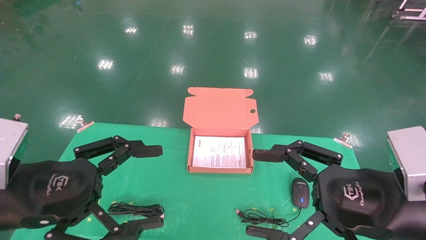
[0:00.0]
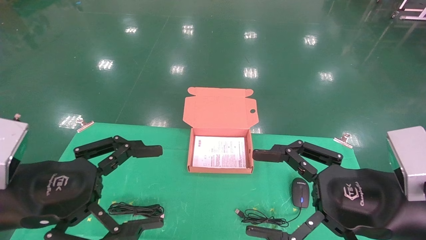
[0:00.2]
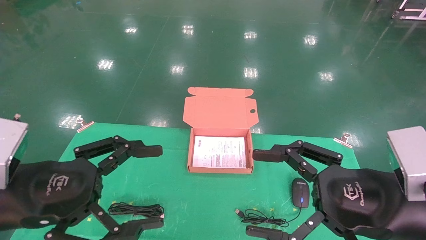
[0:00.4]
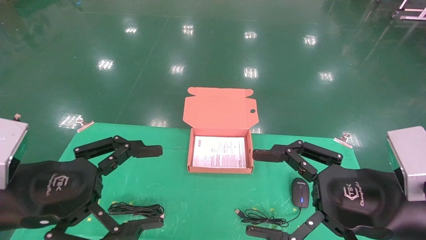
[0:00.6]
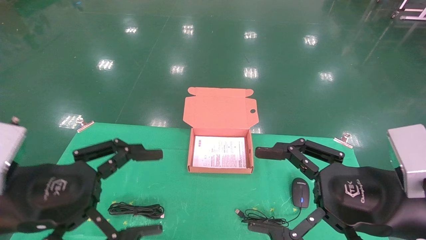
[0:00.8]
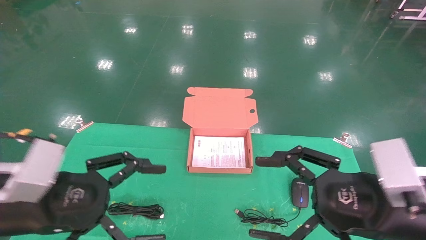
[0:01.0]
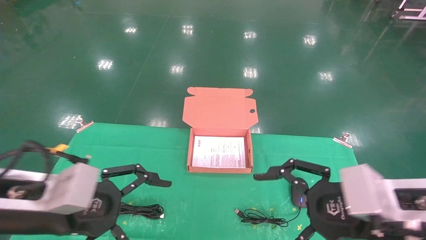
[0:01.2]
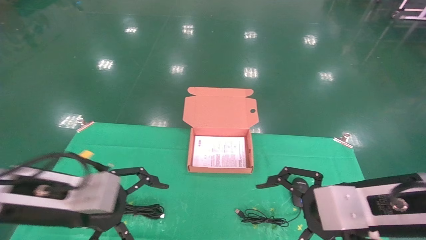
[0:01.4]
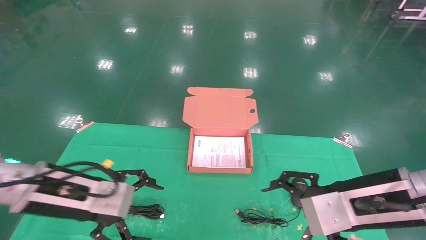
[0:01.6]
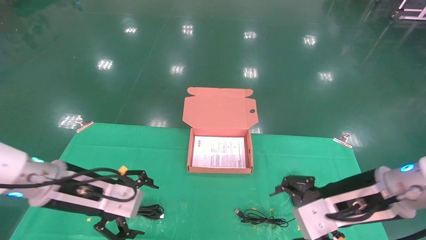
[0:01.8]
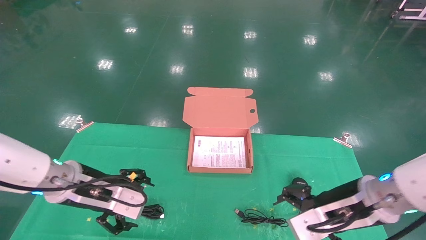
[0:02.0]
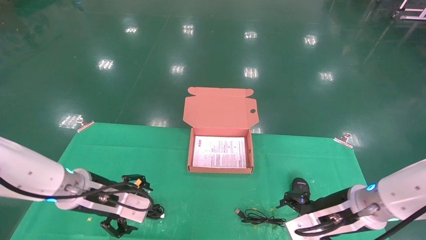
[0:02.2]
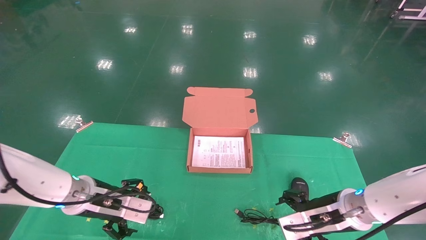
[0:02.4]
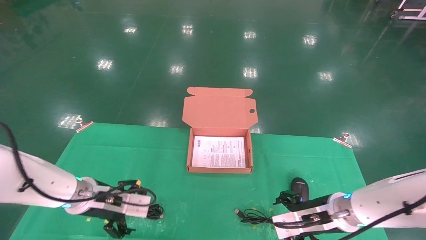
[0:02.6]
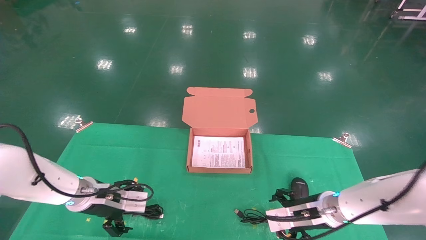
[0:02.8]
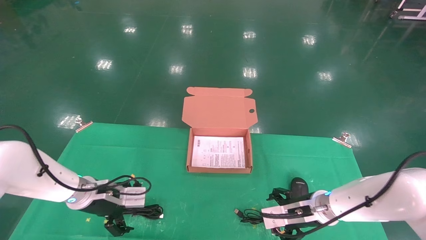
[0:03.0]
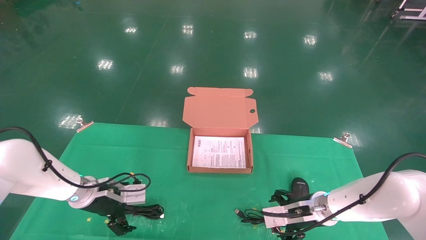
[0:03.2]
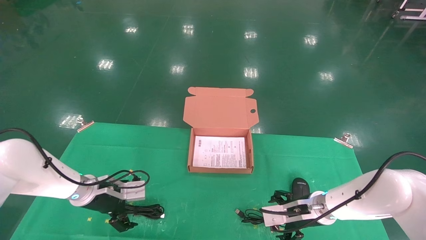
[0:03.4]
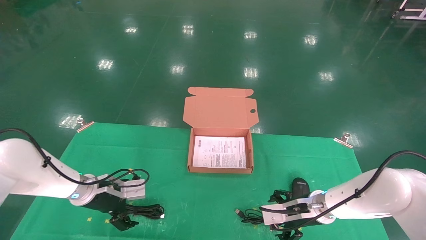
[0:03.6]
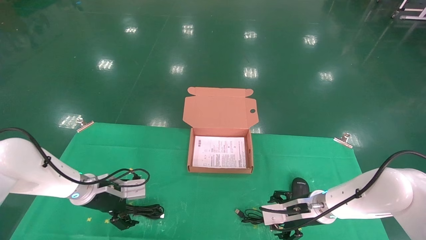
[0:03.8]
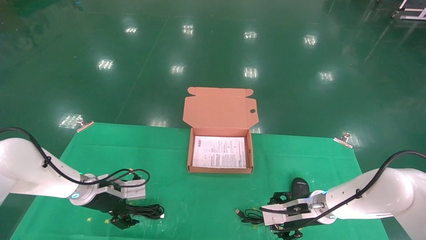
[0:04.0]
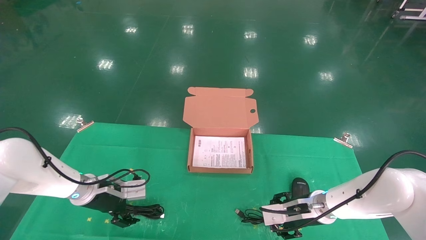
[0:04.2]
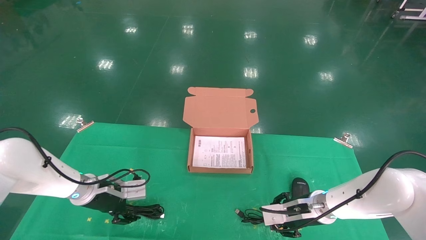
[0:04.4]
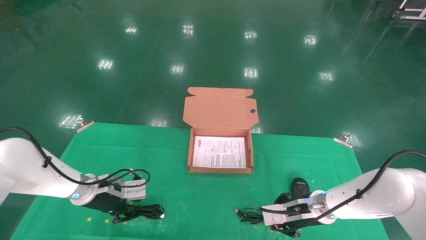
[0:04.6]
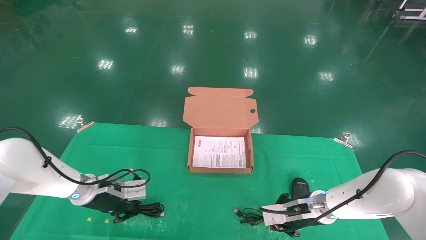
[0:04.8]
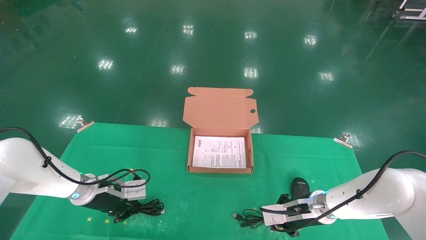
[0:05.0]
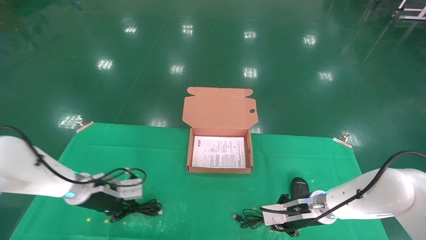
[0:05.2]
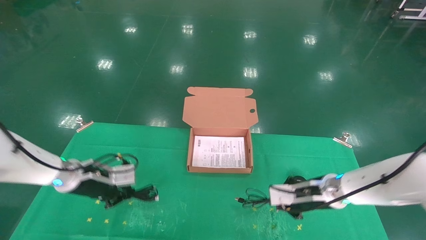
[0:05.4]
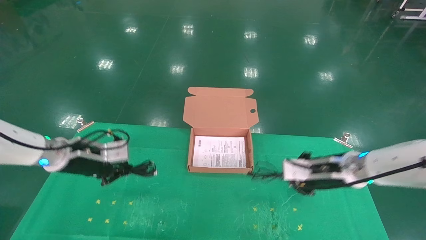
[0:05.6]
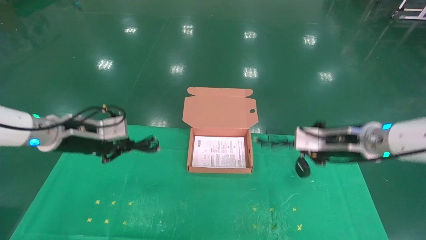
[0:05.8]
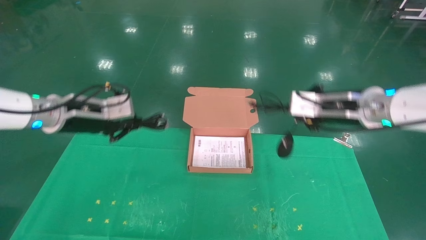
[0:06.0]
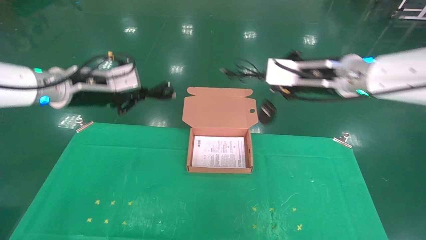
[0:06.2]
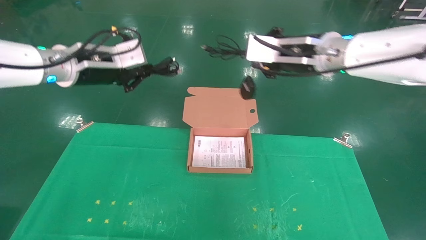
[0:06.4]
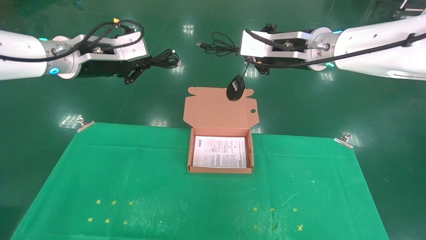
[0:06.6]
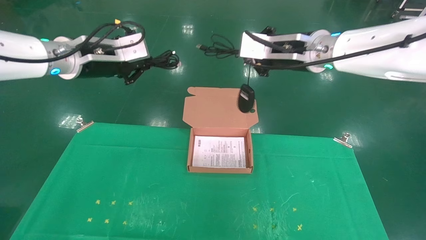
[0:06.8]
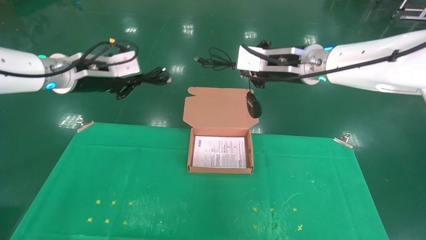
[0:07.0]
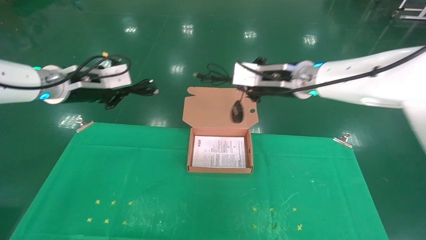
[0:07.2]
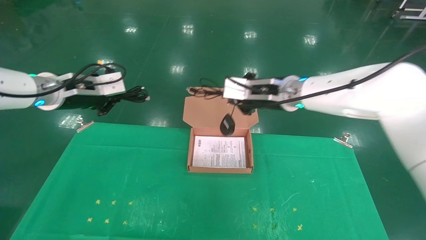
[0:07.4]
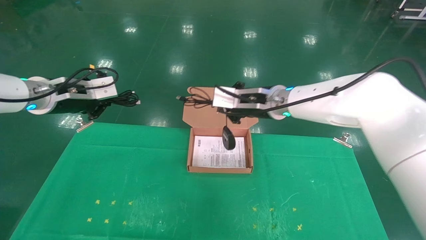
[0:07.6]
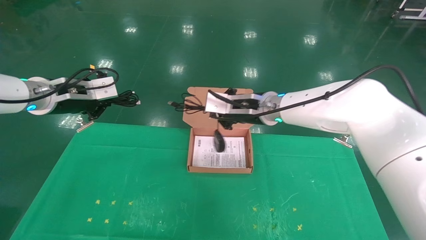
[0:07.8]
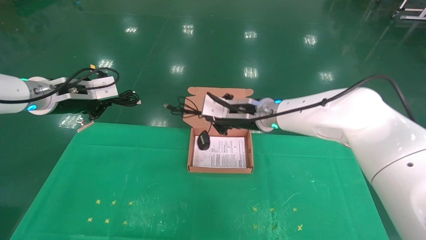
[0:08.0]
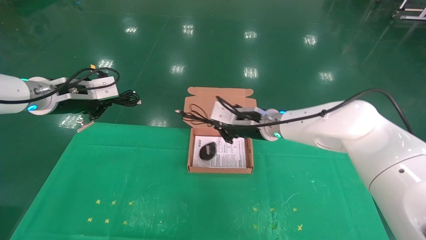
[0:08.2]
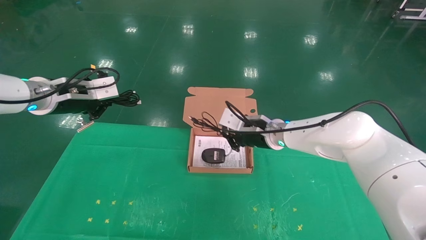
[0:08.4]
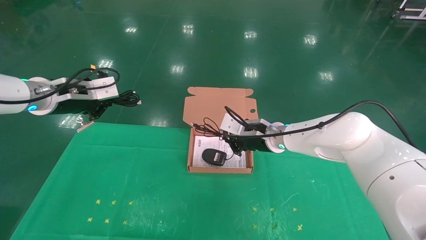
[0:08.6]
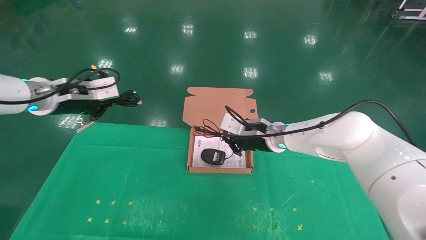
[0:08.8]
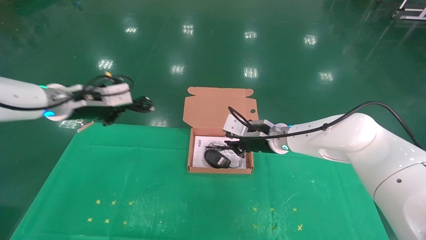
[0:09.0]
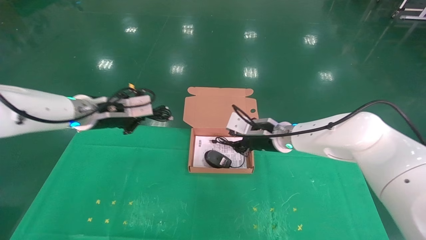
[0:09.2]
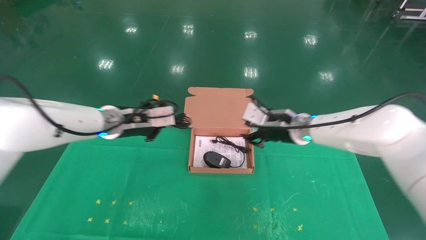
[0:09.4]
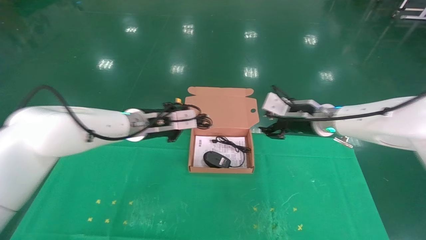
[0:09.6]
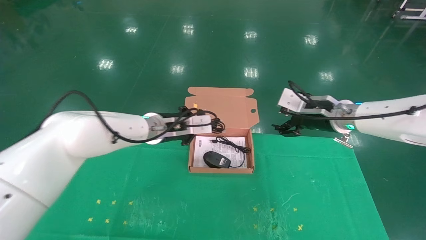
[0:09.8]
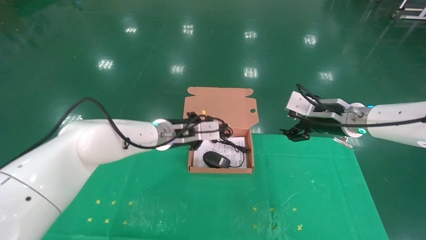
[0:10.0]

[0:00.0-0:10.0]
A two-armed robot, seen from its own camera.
Task of the whole recording: grasp data cable left put into box grasp mouse right put into box.
Step, 0:01.2 to 0:05.6: Grab and pick up both the mouse and power cord from the accessory packaging area at the same time.
0:00.0 to 0:01.4: The left gripper is displaced forward by about 5 cm.
0:01.4 to 0:02.8: Both grippers travel together forward and downward, some 20 cm.
0:02.8 to 0:04.2: The grippers make only small movements.
0:04.2 to 0:05.8: The two grippers go about 15 cm upward. The left gripper closes up. The right gripper closes.
0:05.8 to 0:07.2: The right gripper heads to the left and upward, covering approximately 15 cm; the left gripper goes approximately 10 cm upward.
0:07.2 to 0:08.6: The right gripper goes roughly 15 cm downward.
0:08.6 to 0:10.0: The right gripper moves to the right and upward, some 15 cm, and opens its fingers. The left gripper moves to the right and downward, approximately 25 cm.

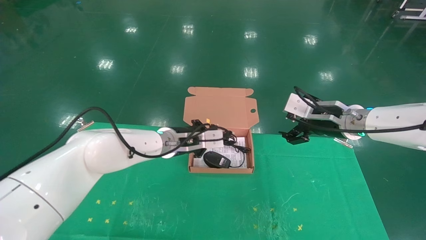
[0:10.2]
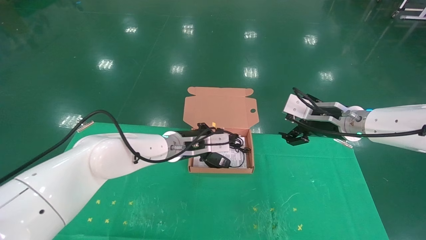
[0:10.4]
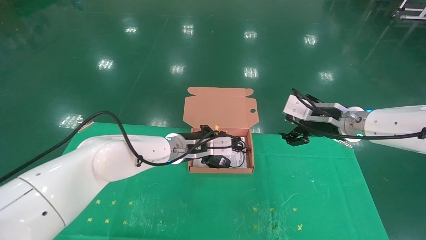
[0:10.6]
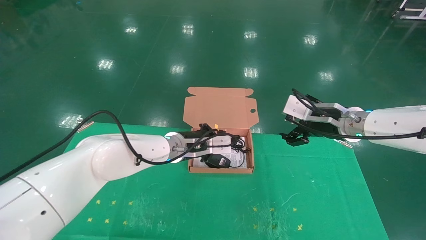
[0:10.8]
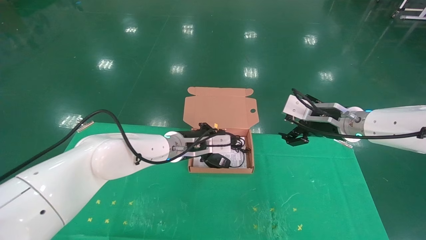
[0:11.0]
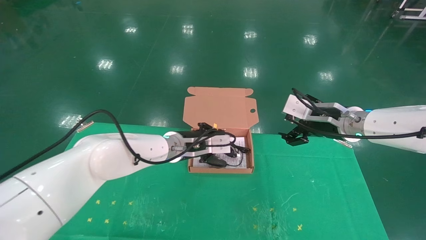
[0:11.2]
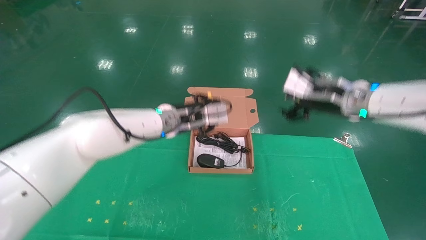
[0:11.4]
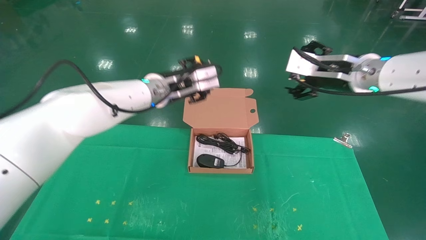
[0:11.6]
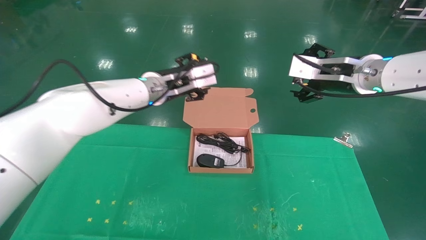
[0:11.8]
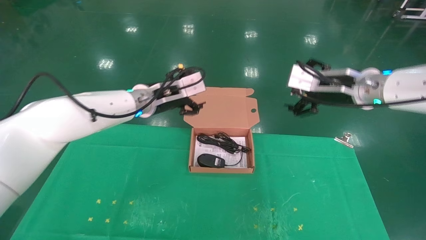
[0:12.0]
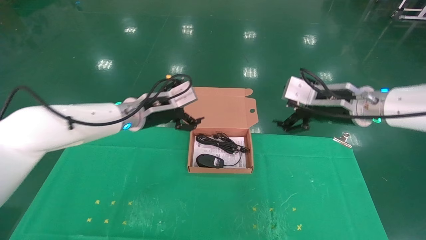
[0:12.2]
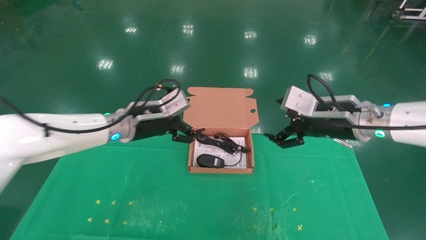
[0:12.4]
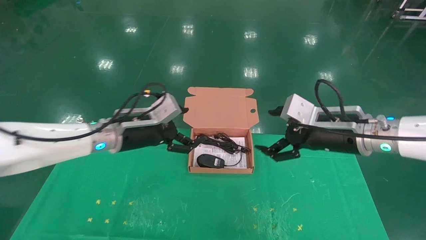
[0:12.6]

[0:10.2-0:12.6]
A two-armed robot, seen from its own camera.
Task of the whole recording: grasp data cable left put into box grasp mouse right put into box.
0:10.2 to 0:11.4: The grippers both shift upward by approximately 5 cm.
0:11.4 to 0:12.6: The left gripper is displaced to the left and backward by approximately 10 cm, and opens, while the right gripper goes about 5 cm backward.
